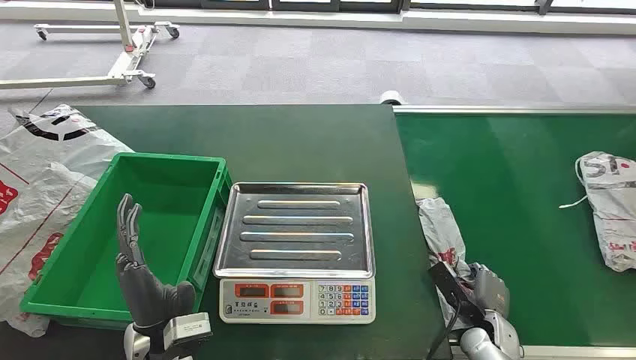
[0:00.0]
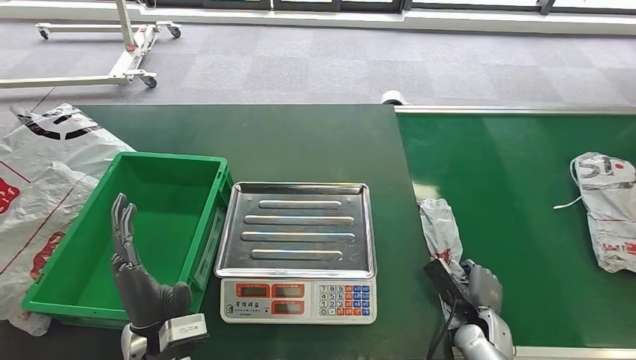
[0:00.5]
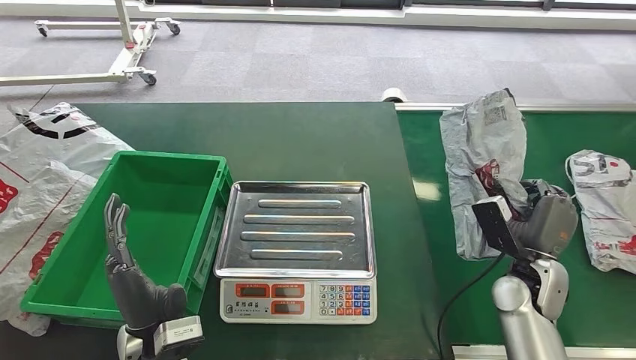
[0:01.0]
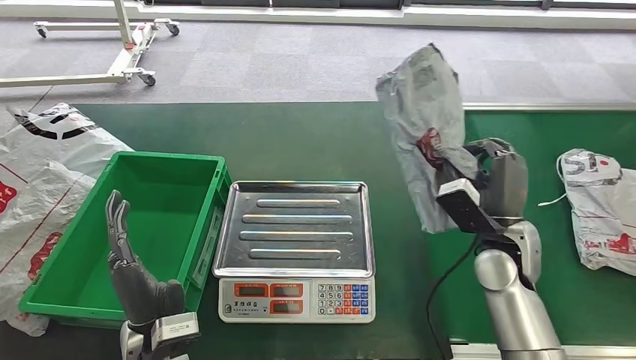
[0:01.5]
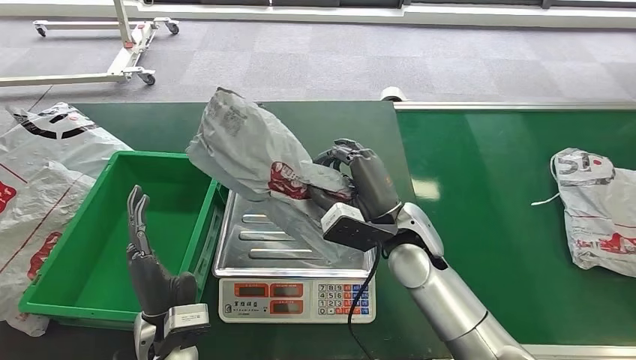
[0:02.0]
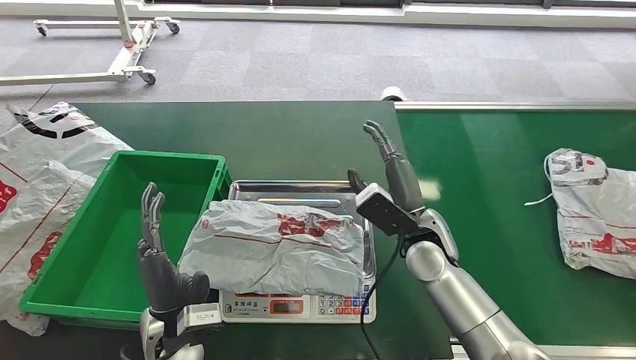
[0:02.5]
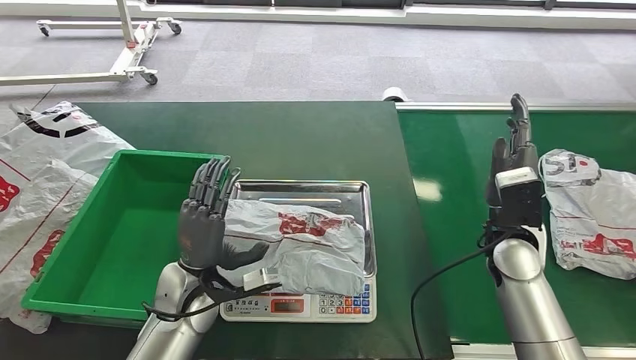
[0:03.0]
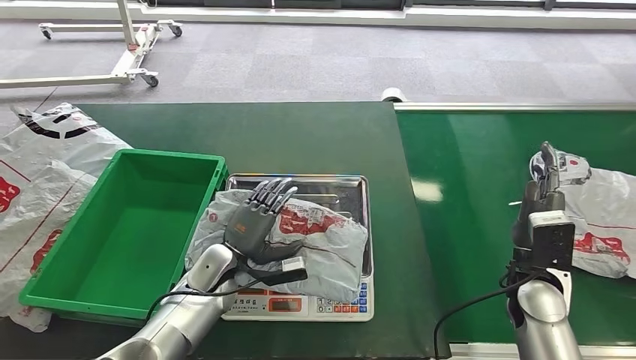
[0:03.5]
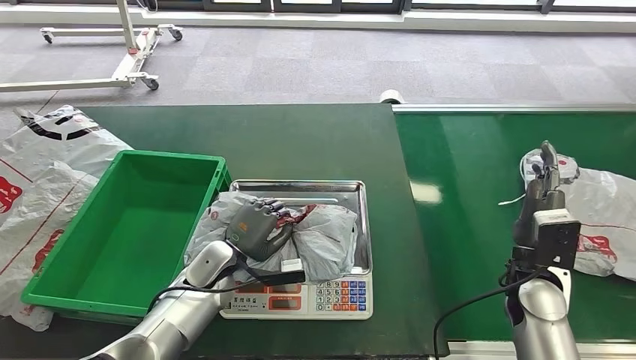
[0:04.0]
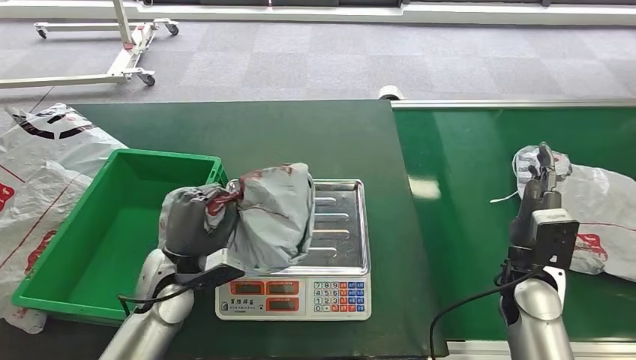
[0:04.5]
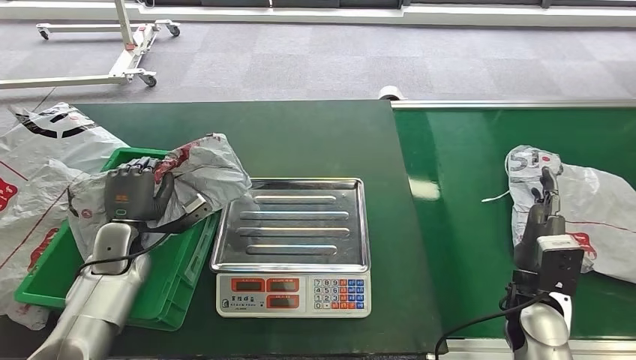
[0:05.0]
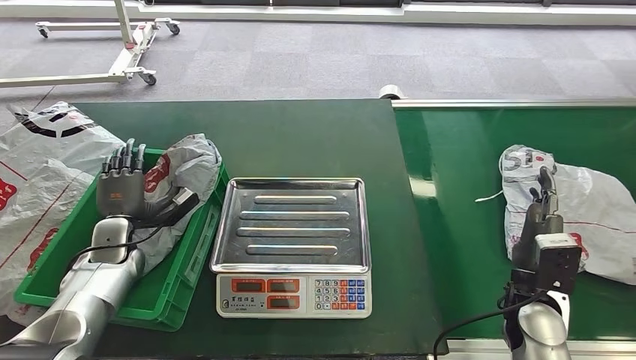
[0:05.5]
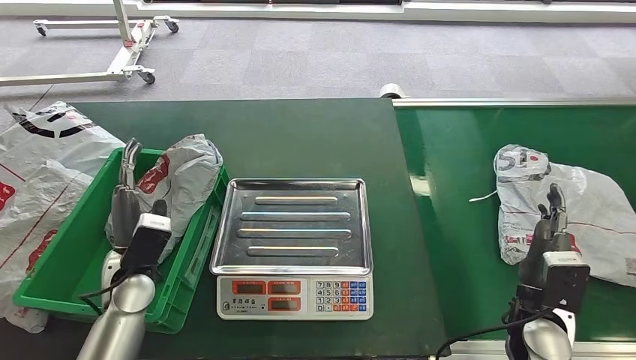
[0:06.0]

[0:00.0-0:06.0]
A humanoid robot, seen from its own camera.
Step, 0:00.0 to 0:01.0: Pick up the package from the conveyor belt.
Step, 0:01.5 to 0:02.5: Place the package onto the inbound machine.
Step, 0:03.5 to 0:04.5: Pick up the package from the inbound machine.
Step, 0:05.0 to 0:06.0: Place the package into the parcel locker.
